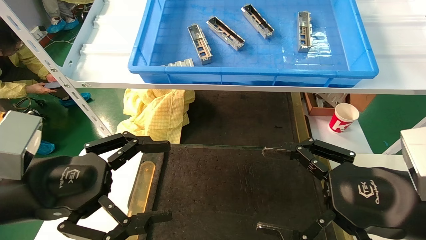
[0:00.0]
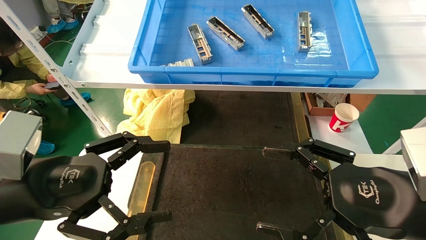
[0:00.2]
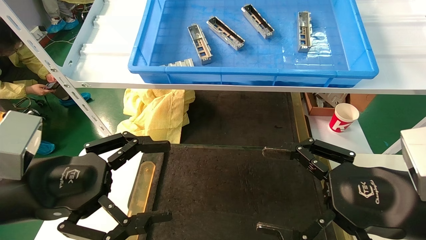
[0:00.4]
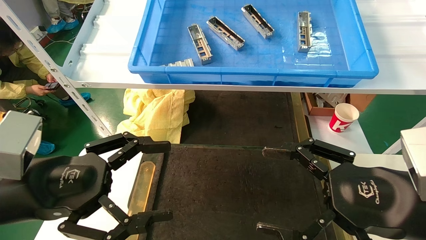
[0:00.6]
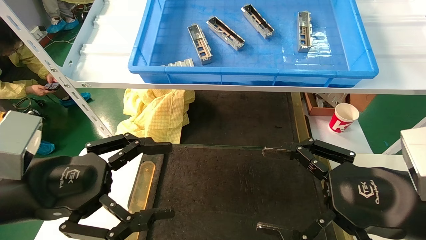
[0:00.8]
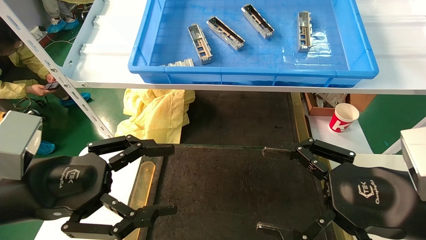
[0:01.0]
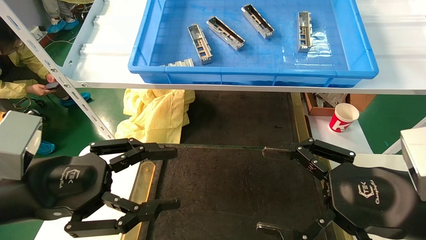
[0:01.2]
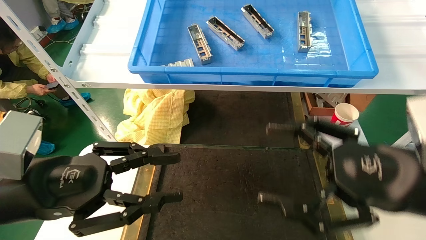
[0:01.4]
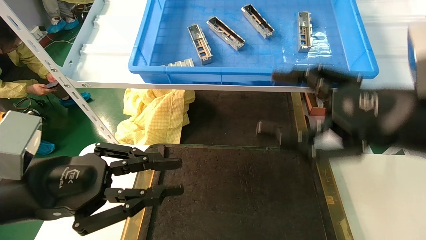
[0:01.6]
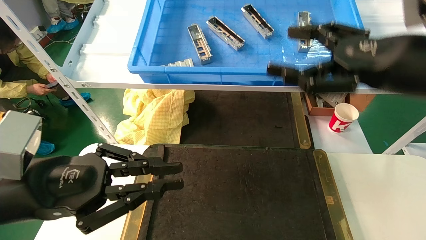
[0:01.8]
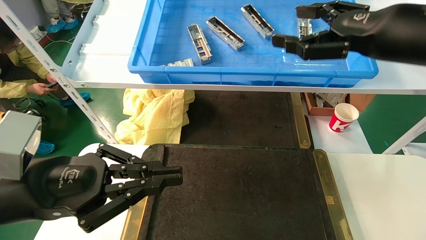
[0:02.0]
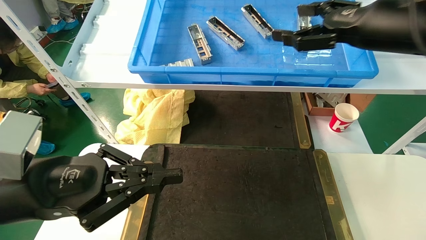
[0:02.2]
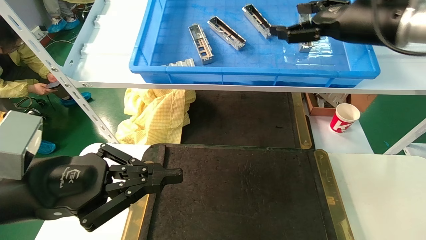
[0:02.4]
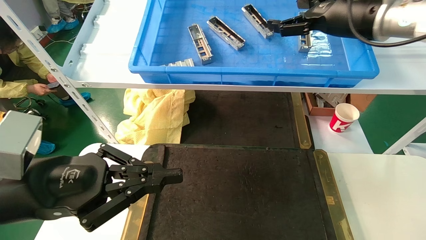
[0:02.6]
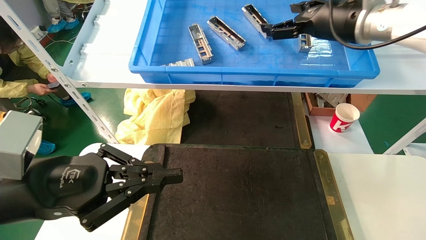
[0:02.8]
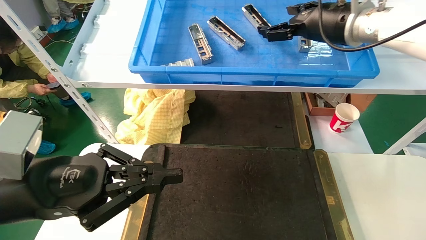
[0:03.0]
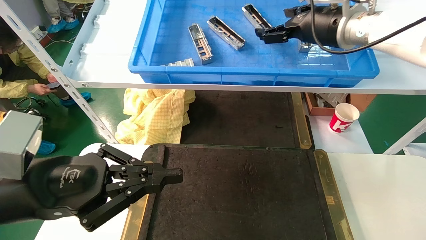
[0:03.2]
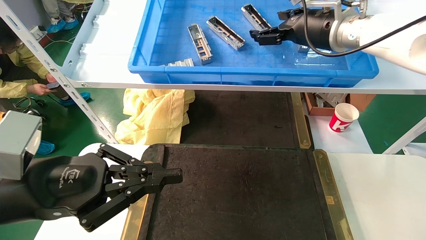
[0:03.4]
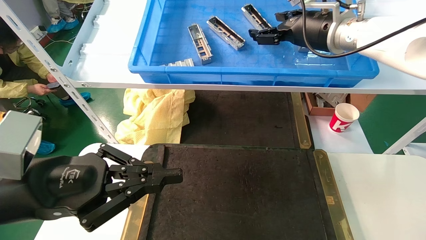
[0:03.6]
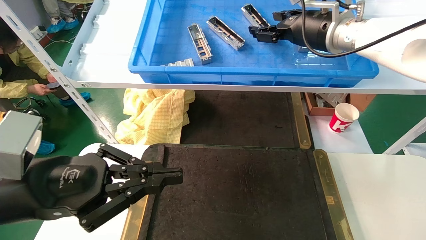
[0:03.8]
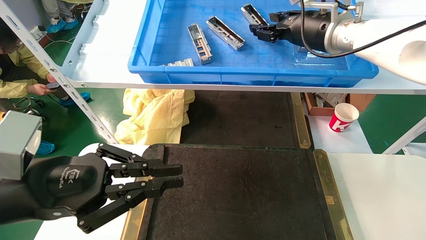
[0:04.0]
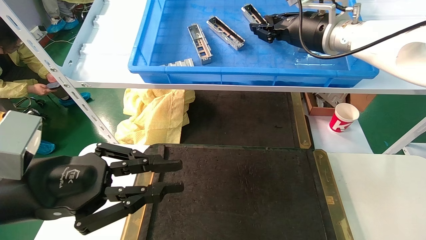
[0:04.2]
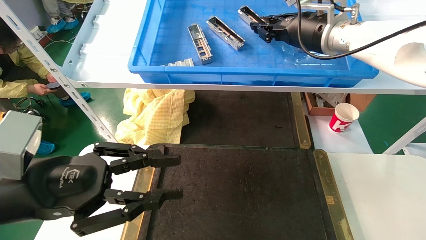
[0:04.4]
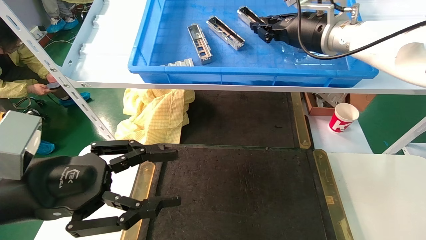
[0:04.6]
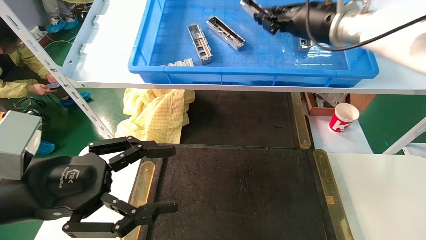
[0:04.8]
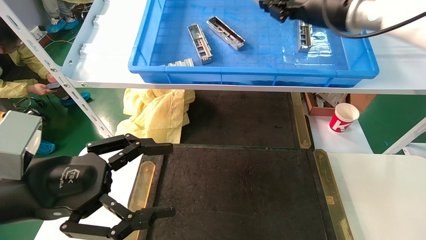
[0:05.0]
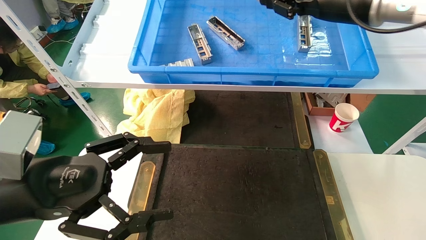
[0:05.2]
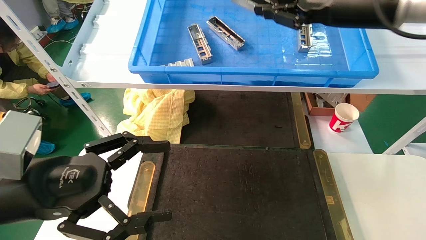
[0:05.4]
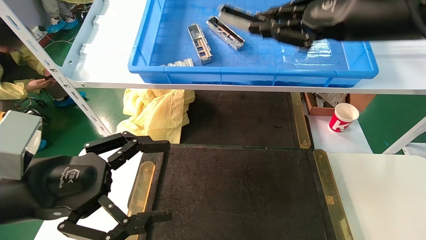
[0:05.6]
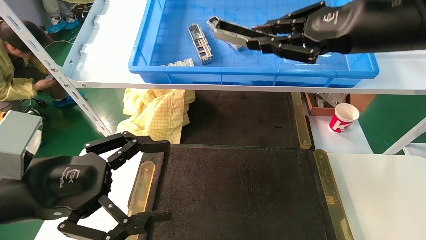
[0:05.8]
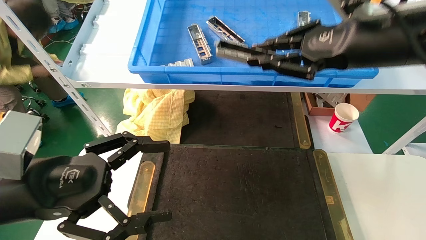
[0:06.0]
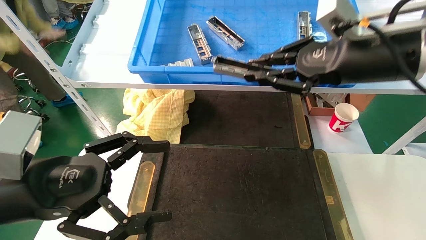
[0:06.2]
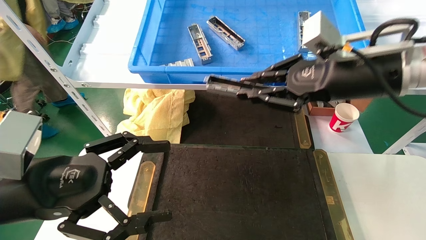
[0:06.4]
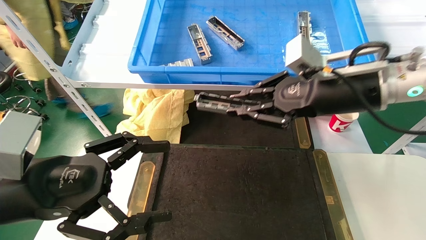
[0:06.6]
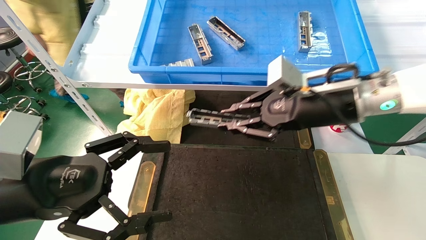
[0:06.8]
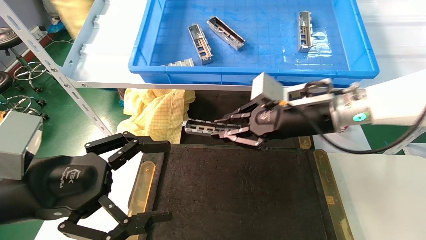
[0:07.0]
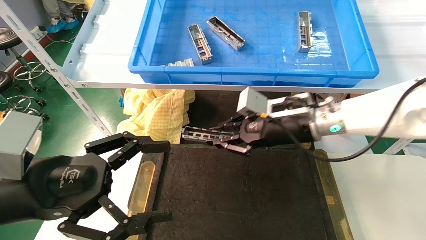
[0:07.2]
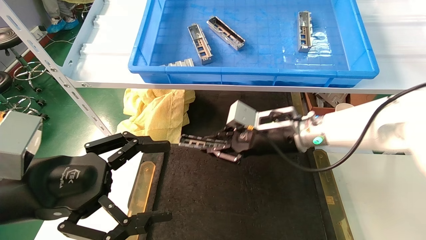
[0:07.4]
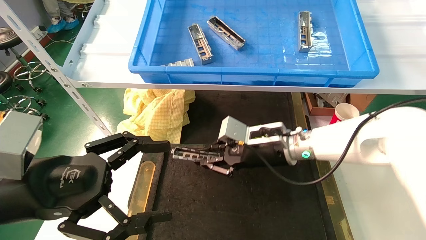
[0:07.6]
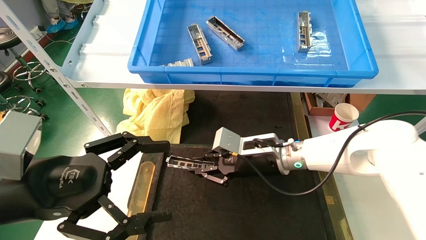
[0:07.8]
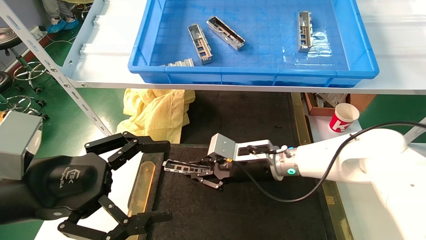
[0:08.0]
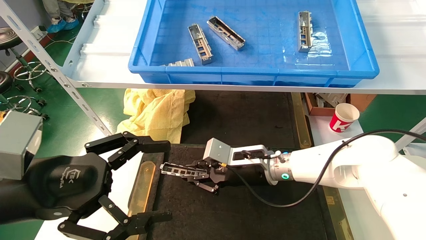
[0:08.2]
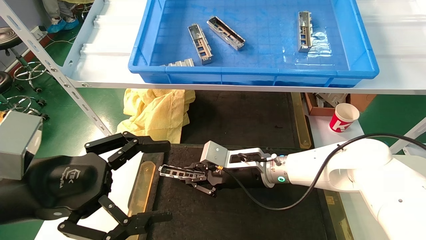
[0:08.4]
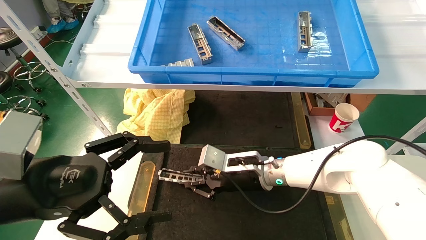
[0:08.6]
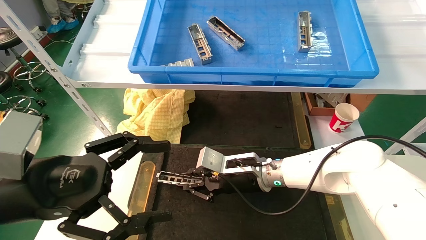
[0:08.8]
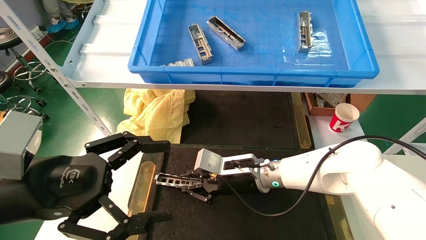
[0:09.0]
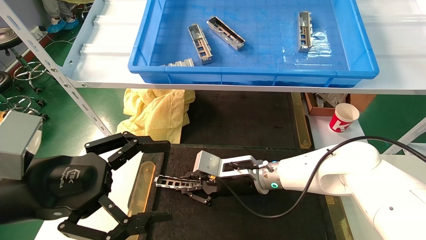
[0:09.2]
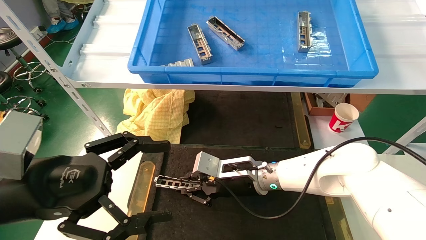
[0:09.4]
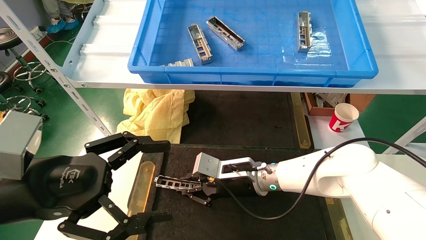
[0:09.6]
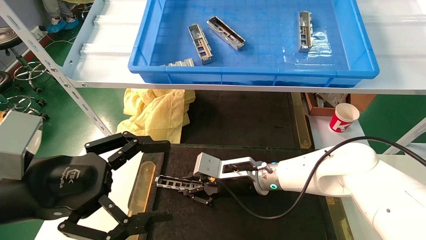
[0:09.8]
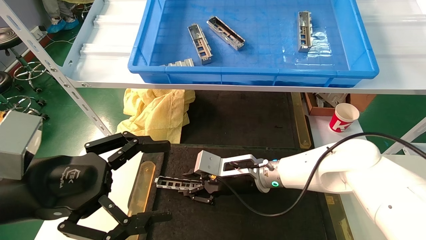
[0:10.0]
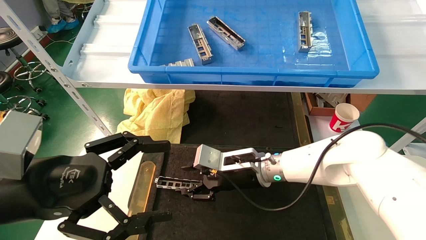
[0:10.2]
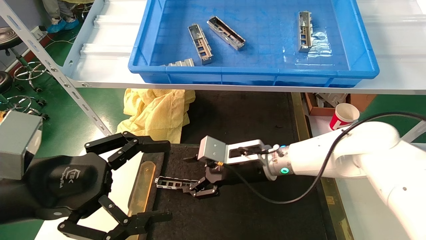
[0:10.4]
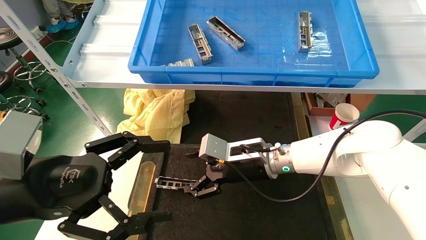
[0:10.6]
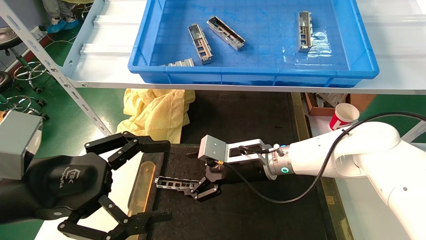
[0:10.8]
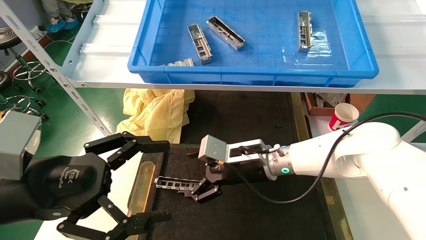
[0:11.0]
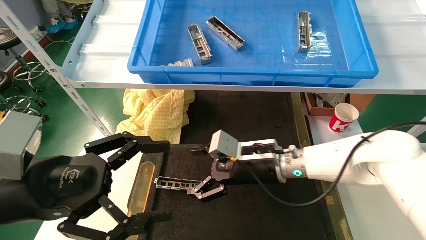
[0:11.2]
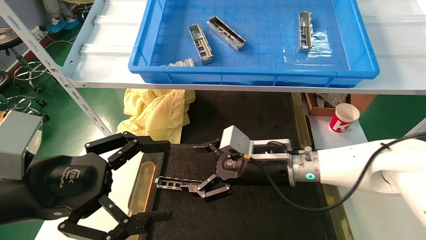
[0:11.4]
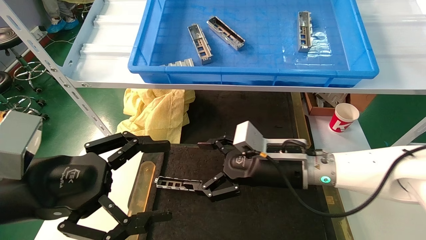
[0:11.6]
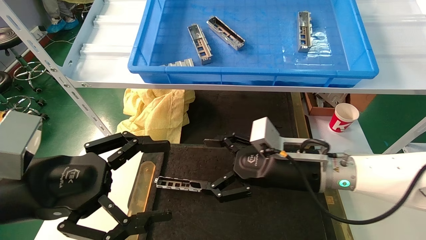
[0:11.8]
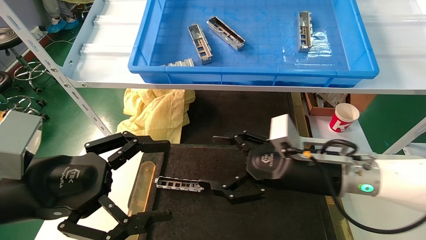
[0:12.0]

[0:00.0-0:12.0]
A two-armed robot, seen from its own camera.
Task of the whole recording: grasp the part and place them on the black container.
Step, 0:01.6 to 0:04.4: Pick up and lift the front USB bracket from the feeding area.
Step, 0:04.6 to 0:09.6: Place the front USB bracket into the box.
0:00.0 to 0:01.6: The left gripper closes up; the right gripper shifts some 10 cm upward.
0:01.6 to 0:03.0: The left gripper closes up. Meanwhile the right gripper travels forward and upward by approximately 25 cm.
0:03.0 to 0:04.4: The right gripper closes its fingers.
0:04.4 to 0:06.0: The left gripper opens up; the right gripper shifts some 15 cm backward.
0:06.0 to 0:07.6: The right gripper is displaced downward, to the left and forward by about 25 cm.
0:07.6 to 0:09.0: The right gripper travels downward and to the left by about 10 cm.
0:09.0 to 0:10.4: The right gripper opens up.
0:10.4 to 0:12.0: The right gripper goes about 15 cm to the right and backward, and opens up.

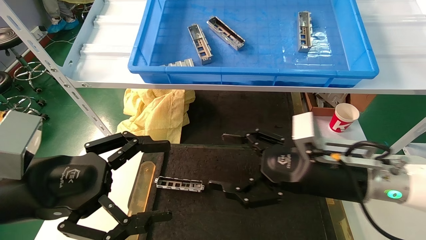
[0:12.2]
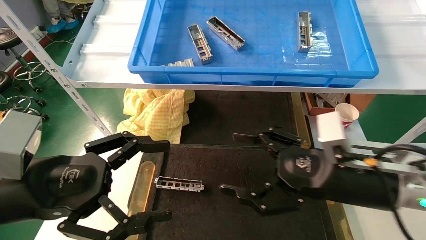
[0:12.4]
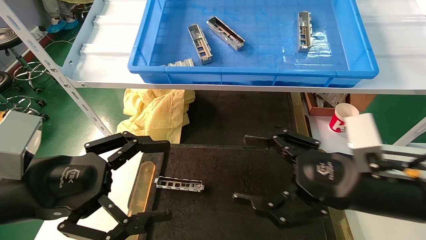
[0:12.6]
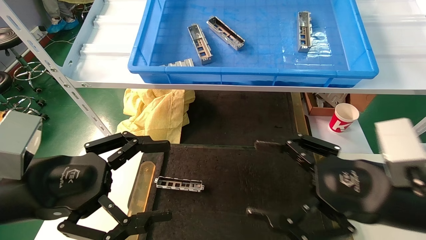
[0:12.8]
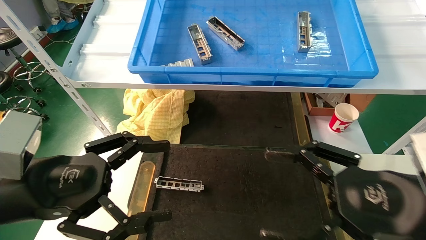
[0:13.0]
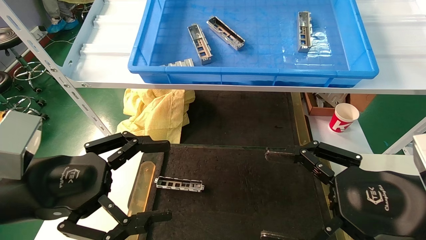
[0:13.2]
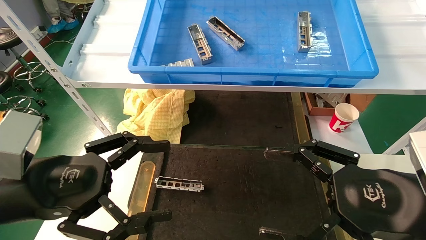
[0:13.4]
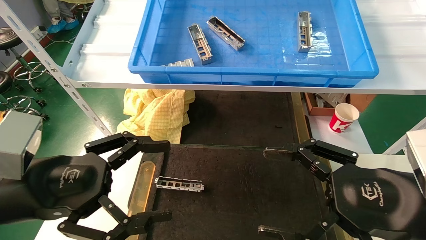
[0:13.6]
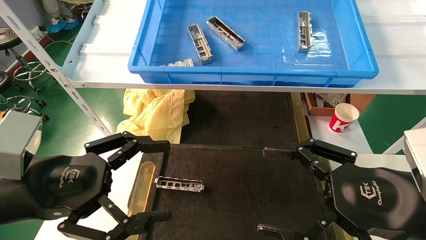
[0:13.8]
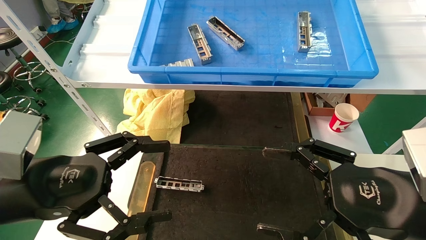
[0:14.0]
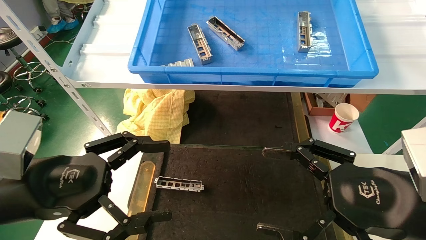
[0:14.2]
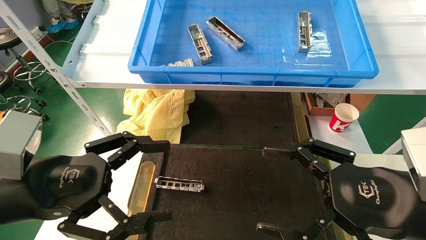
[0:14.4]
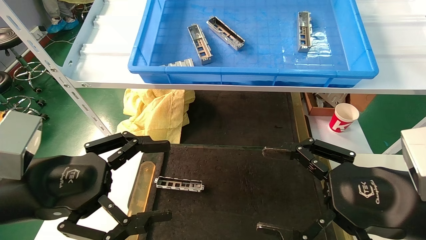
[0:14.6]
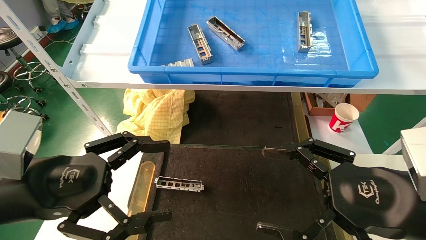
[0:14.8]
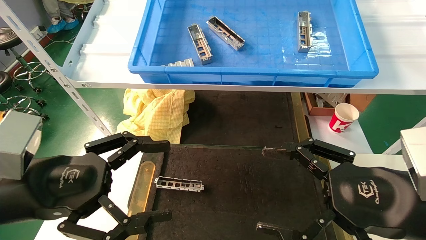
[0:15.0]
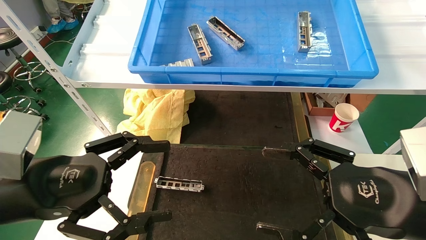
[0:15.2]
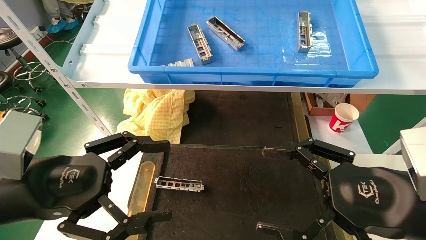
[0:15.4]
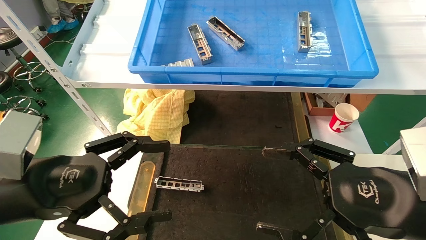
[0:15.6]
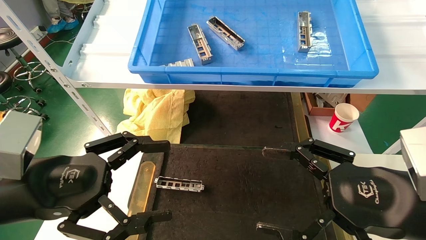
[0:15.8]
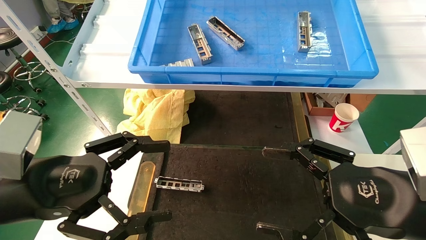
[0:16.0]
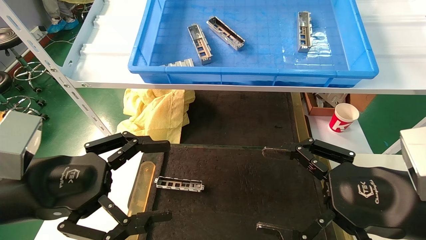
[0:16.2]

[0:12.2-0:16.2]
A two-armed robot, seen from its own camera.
Task of the whole recording: grasp the part and place them on the black container.
0:12.2 to 0:13.6: The right gripper heads backward and to the right, covering some 10 cm.
0:13.6 to 0:16.2: Both grippers stay about where they are.
